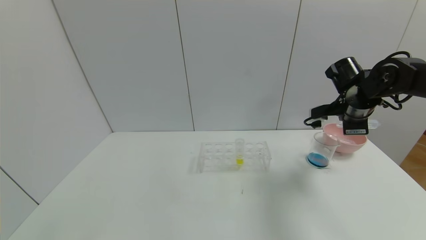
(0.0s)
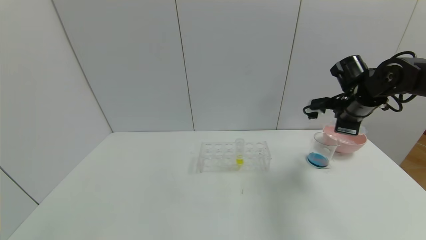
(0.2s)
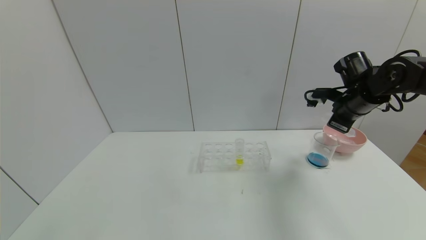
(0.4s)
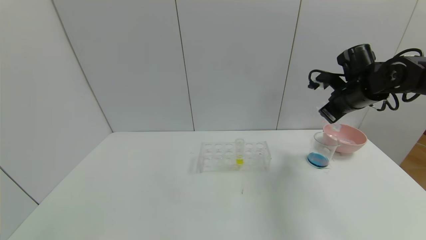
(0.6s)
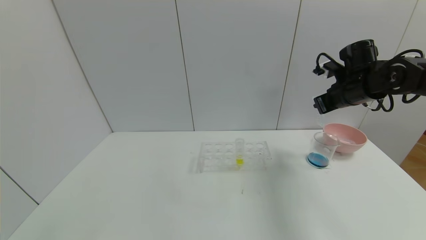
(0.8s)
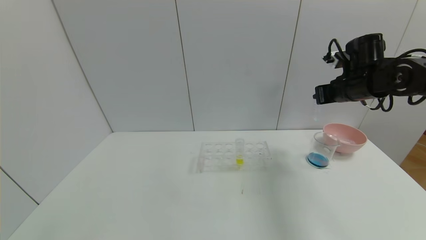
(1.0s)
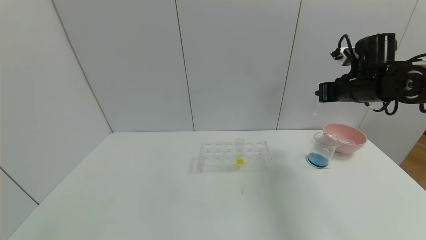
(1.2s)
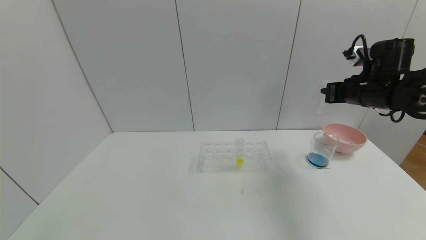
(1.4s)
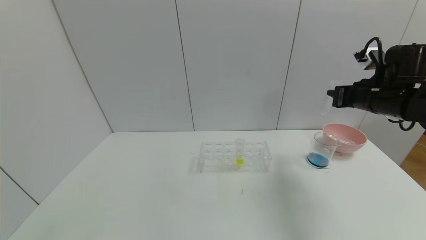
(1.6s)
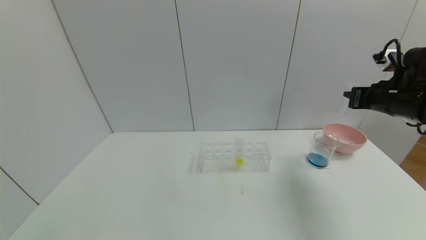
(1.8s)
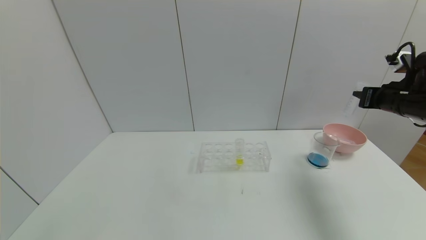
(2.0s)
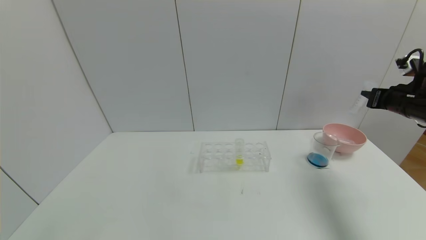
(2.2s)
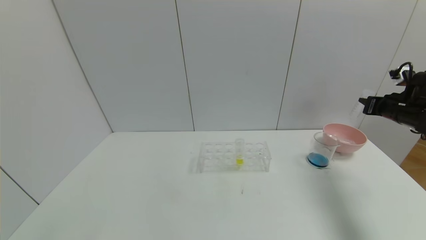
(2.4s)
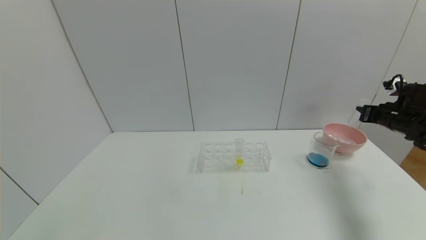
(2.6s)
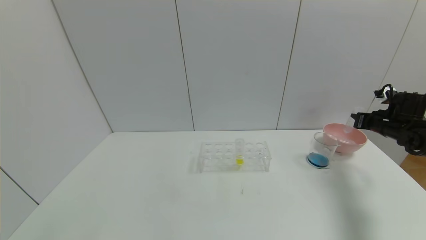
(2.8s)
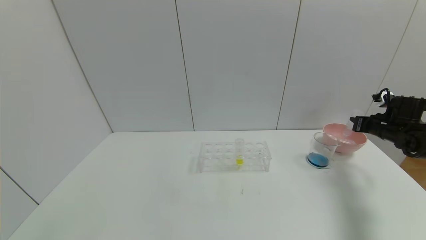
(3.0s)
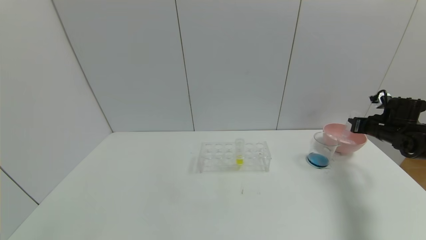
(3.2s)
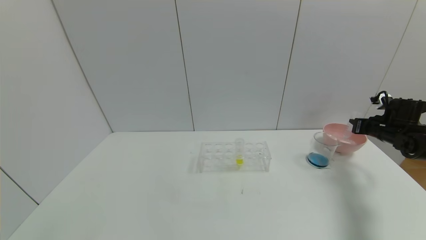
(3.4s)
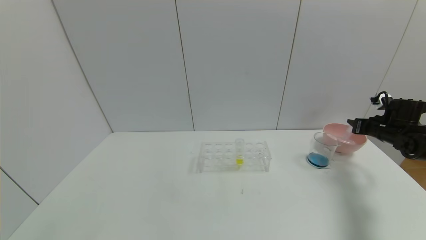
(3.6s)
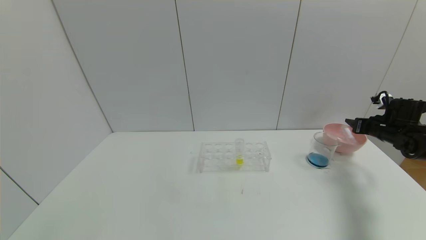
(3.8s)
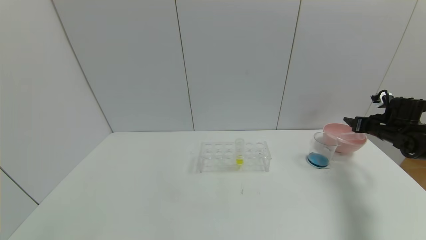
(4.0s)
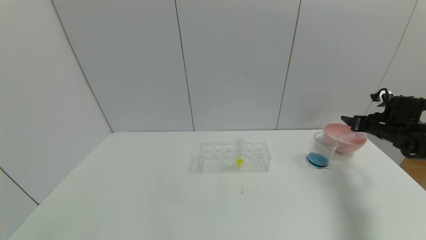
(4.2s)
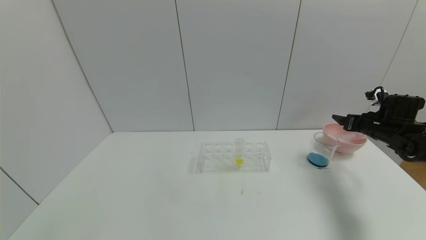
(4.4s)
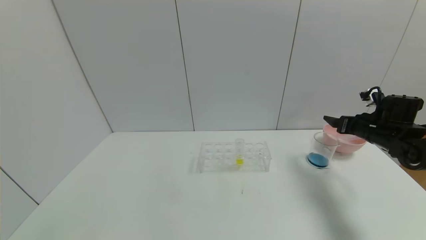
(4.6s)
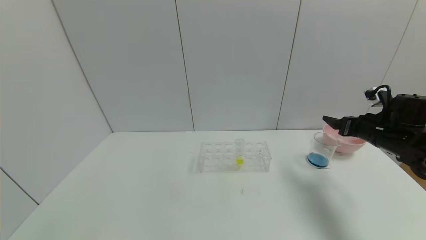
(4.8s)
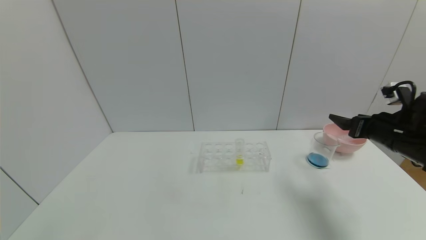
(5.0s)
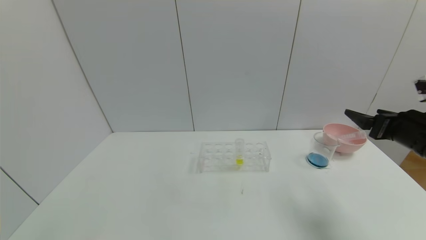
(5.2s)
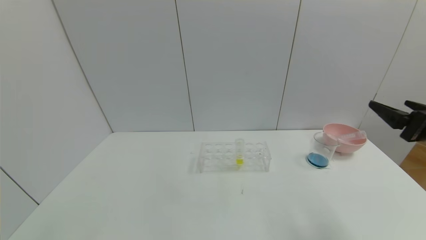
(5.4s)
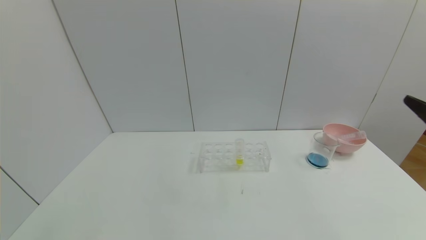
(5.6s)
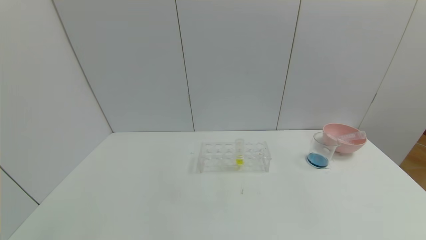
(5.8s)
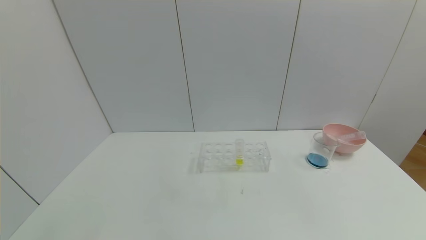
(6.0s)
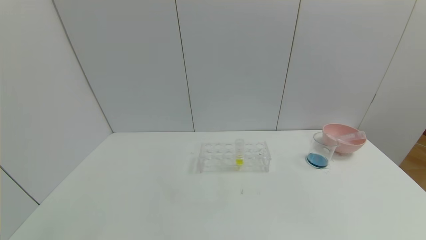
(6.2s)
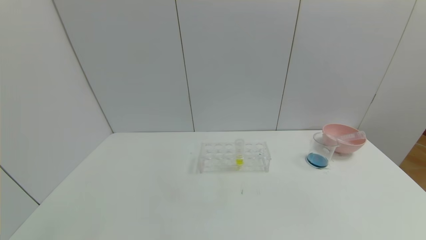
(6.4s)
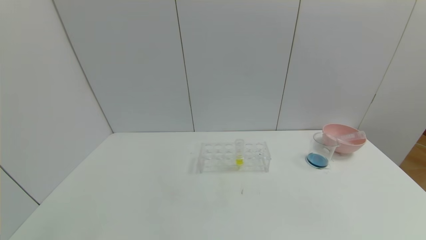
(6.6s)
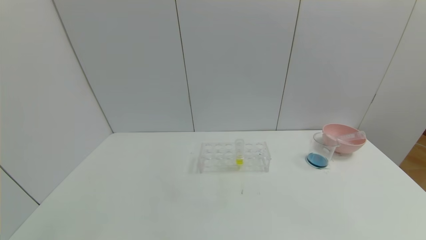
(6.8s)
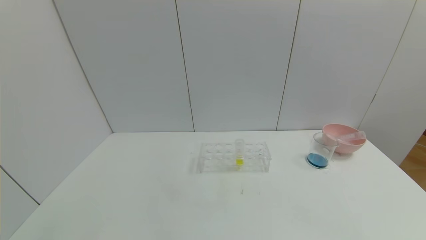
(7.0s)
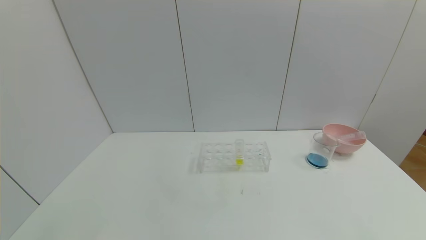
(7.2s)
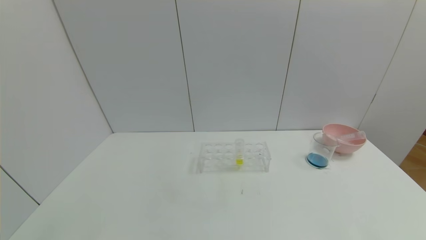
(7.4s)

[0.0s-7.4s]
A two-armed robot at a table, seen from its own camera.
Task of the whole recording: pick up the test tube with red pigment and the test tube with blue pigment by grippers and pour them into the container.
Step, 0.0s to 4.0s: Place the test tube into the bowl with the right gripper.
1.4s to 3.0s: The right gripper heads to the right and downward, covering approximately 20 cm.
3.0s to 4.4s: The right gripper opens up.
4.4s to 6.0s: The right gripper is displaced backward by some 40 cm.
